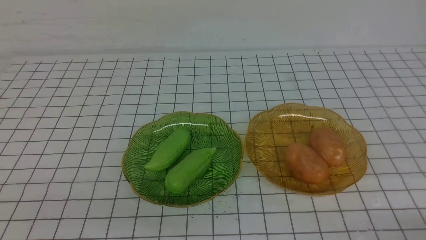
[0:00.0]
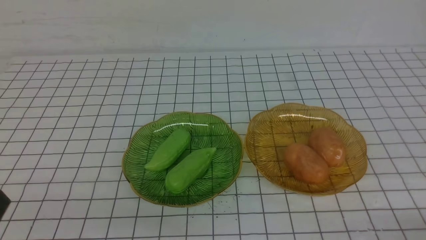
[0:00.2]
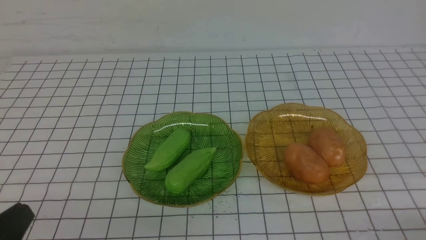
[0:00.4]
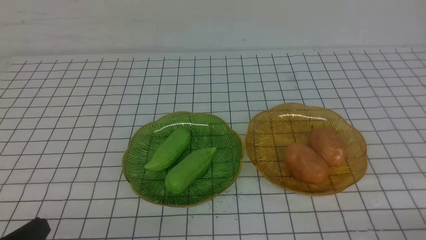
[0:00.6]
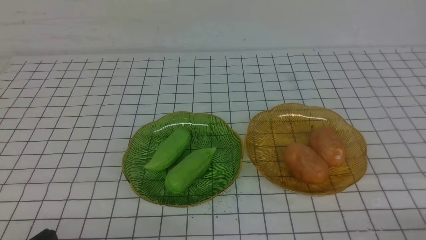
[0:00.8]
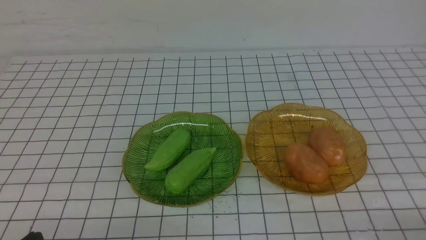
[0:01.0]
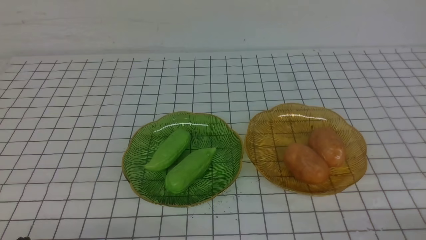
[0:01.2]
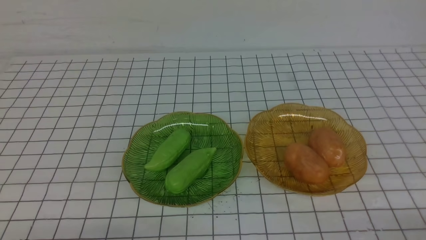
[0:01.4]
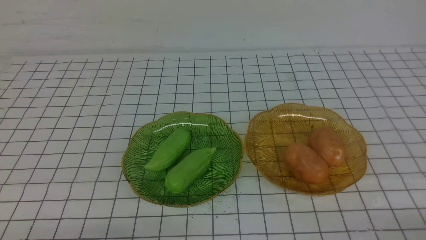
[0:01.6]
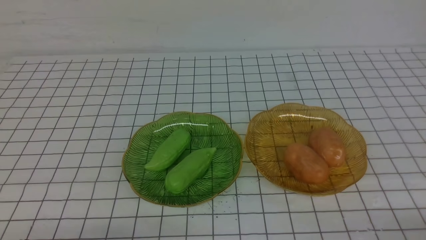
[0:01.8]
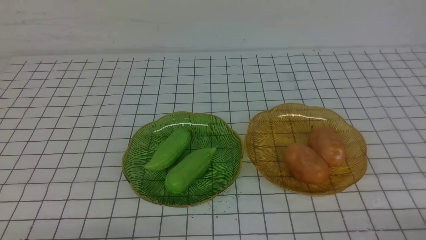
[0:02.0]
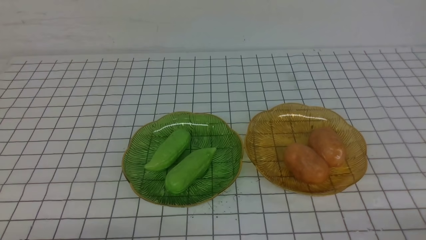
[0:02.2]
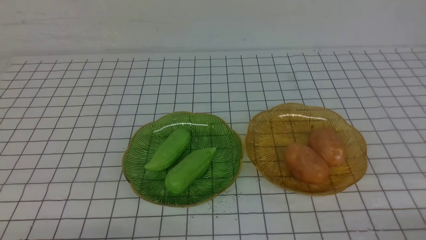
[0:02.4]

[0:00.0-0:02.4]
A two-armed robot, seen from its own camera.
0:01.2 to 0:02.4: Both grippers stay put.

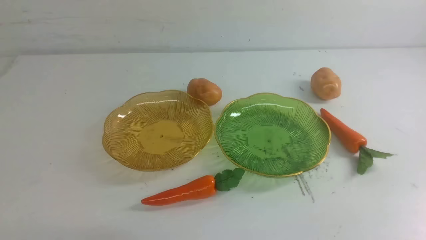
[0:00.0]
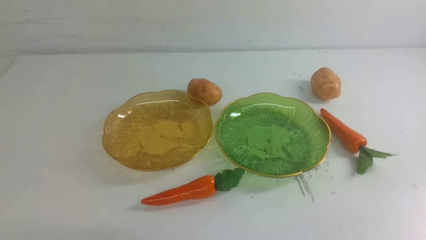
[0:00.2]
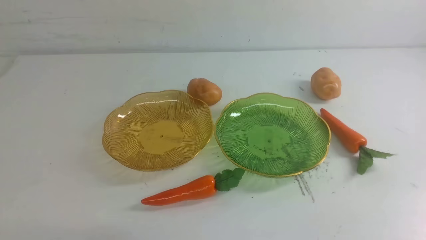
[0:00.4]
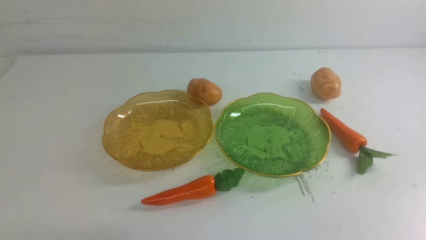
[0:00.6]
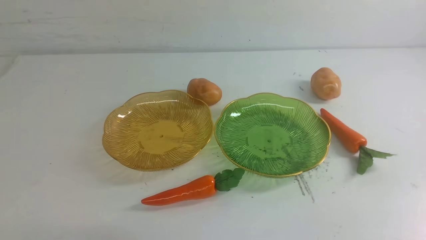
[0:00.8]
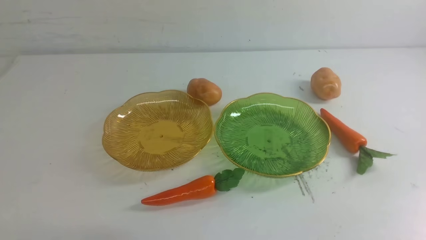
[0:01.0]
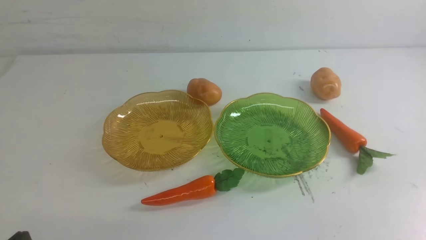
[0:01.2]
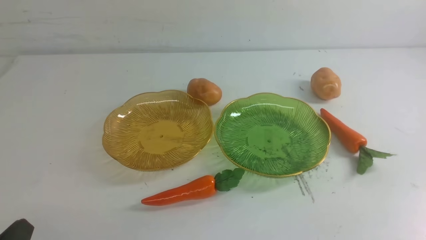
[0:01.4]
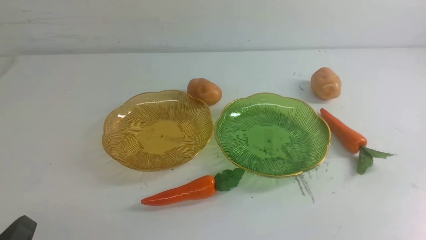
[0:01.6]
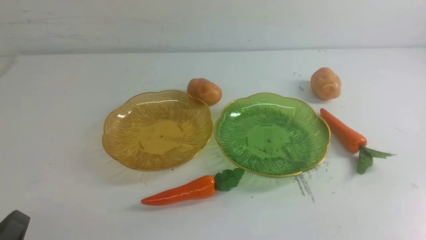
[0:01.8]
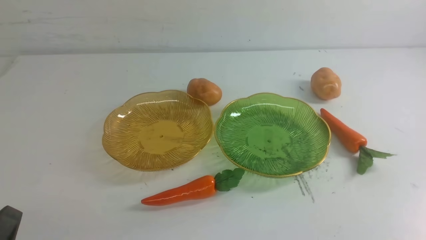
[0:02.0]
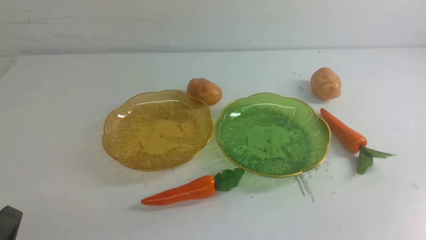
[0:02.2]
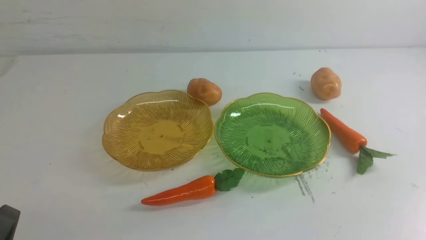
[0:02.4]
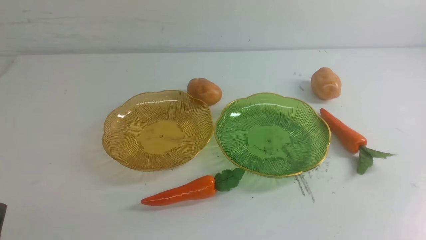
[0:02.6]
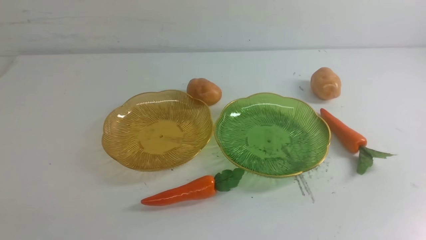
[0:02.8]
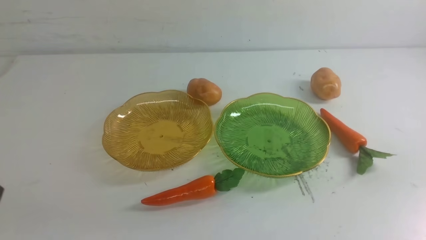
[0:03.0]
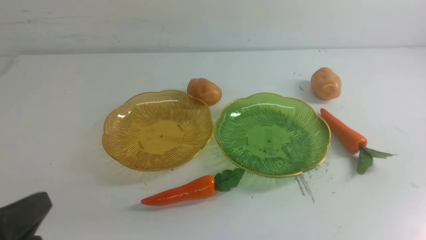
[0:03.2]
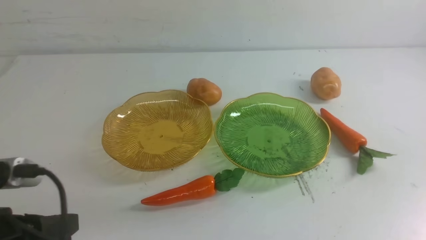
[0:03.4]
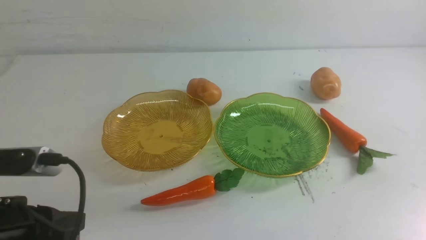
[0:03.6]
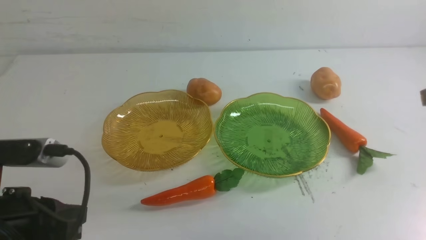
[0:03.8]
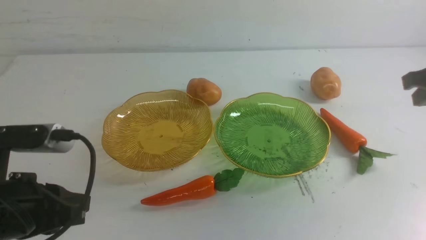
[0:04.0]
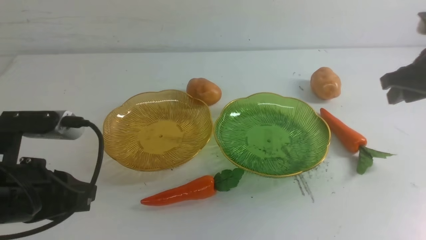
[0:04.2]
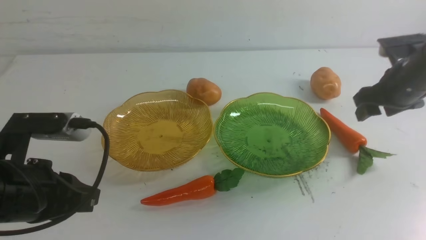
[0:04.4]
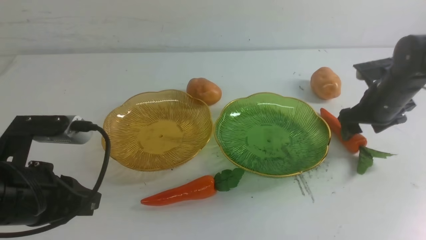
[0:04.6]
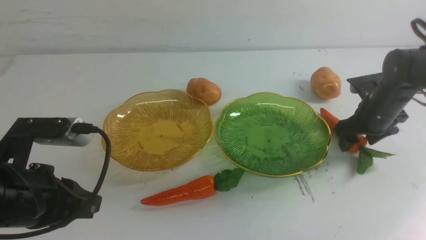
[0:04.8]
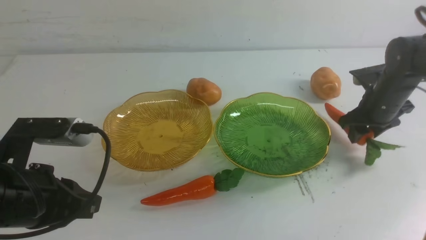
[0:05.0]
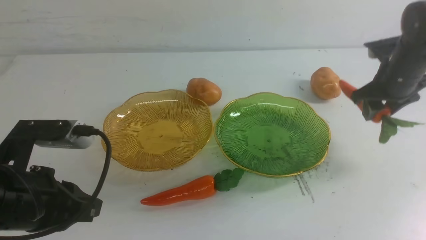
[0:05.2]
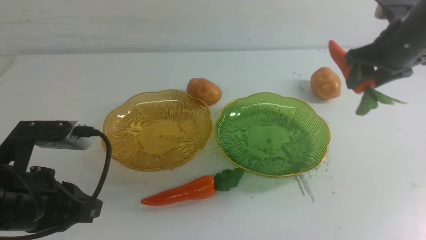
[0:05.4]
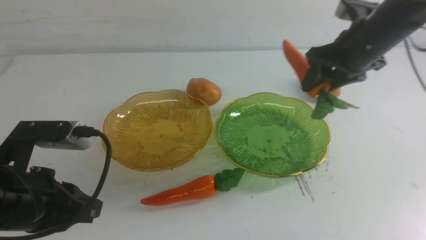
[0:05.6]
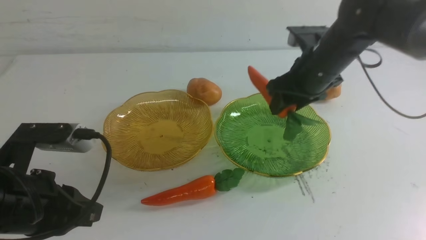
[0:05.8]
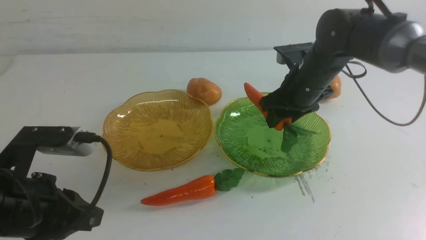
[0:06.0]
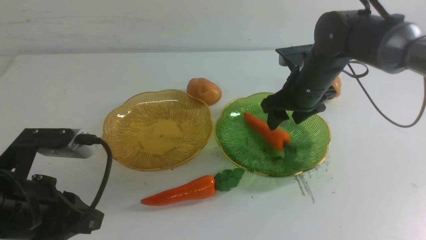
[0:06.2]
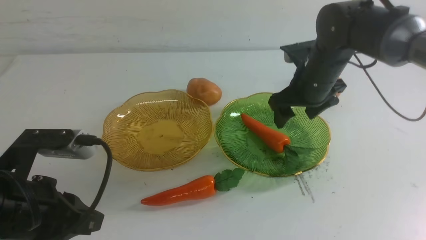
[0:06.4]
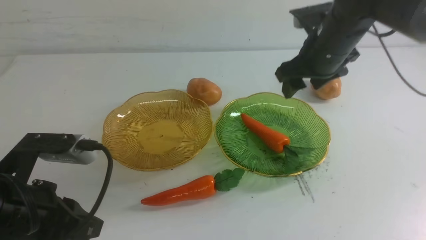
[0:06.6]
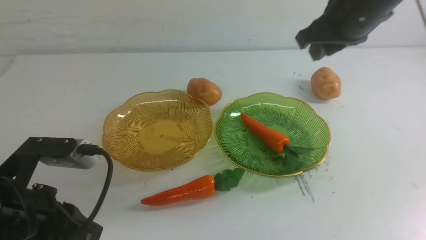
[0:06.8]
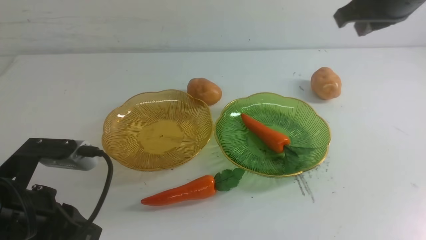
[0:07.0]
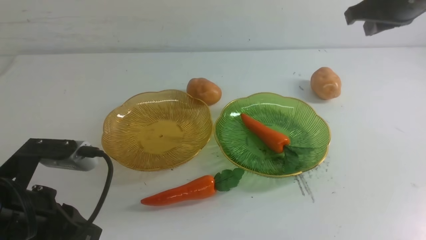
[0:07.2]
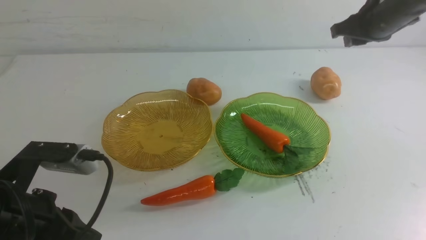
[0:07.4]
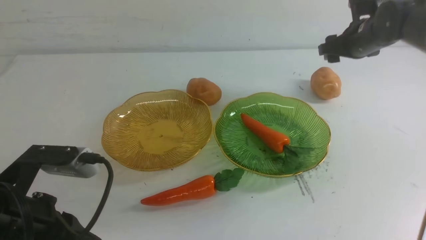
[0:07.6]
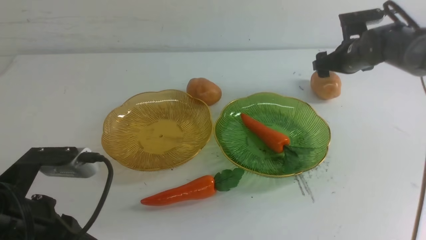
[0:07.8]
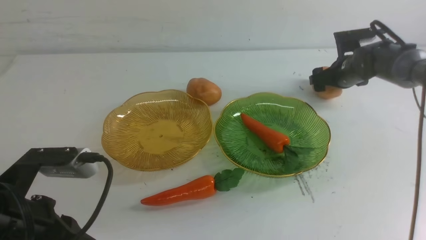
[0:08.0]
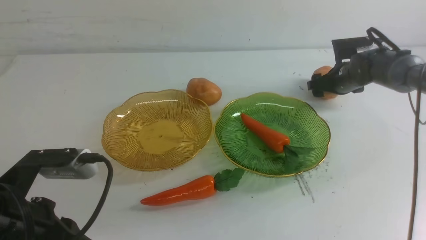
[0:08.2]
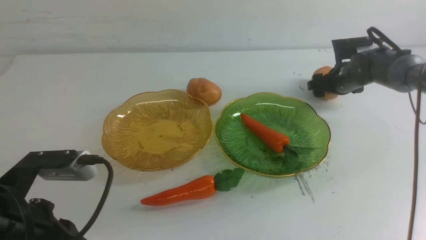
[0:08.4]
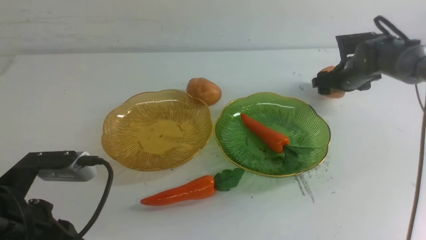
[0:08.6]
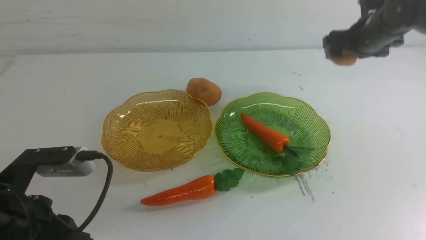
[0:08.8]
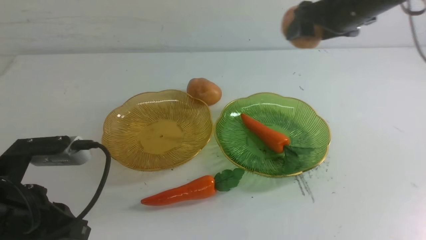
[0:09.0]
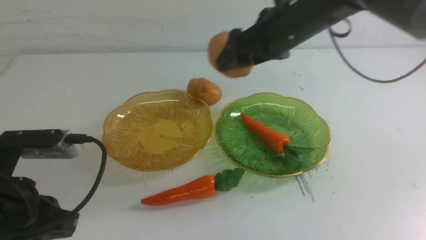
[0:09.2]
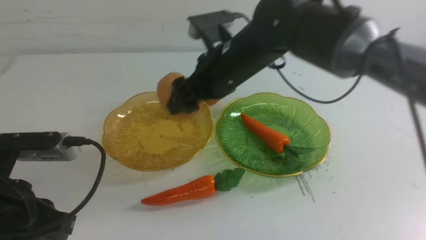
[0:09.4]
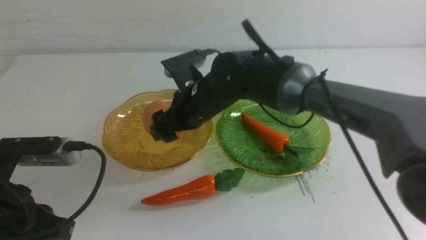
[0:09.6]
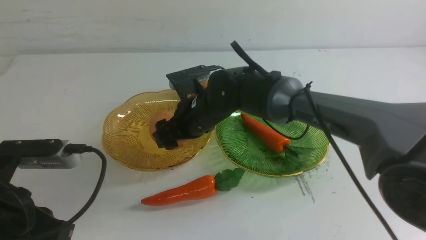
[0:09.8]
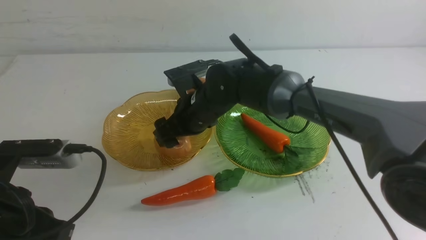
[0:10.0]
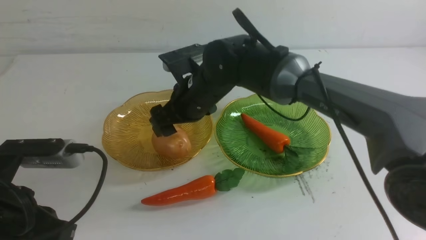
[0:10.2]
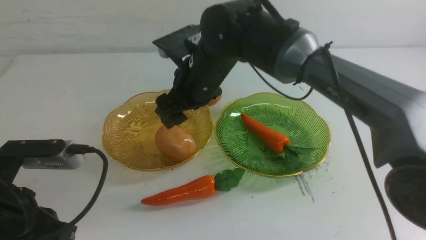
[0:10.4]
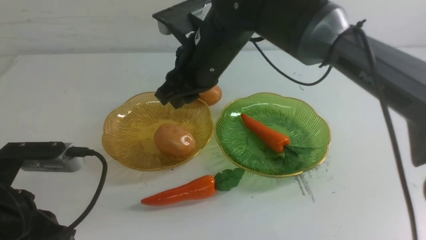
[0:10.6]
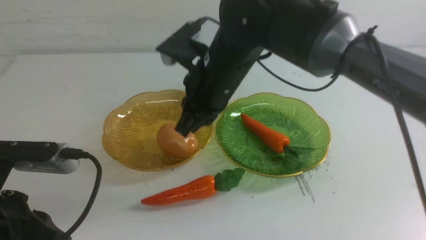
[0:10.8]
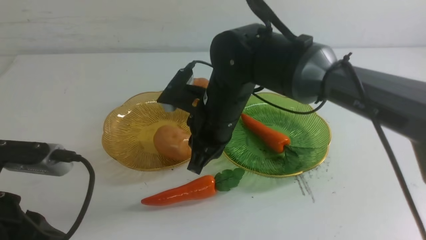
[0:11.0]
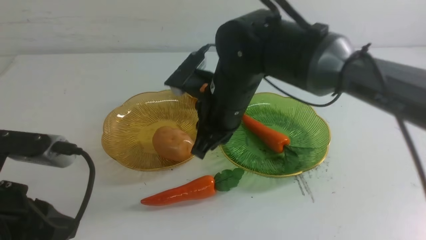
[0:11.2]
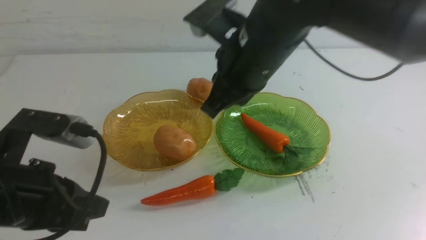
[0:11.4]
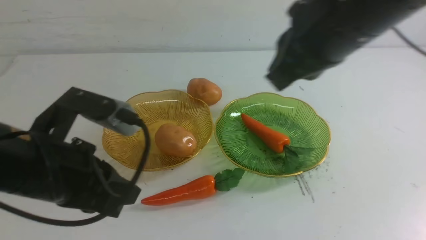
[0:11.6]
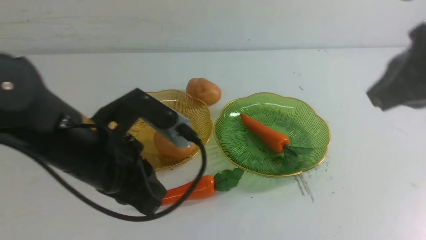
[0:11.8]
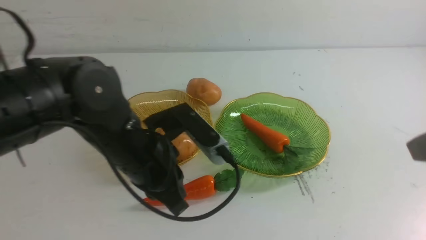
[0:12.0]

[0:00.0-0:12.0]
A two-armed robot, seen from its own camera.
Step, 0:00.0 to 0:06.4: use the right arm to grab a carrot and put it into the right plate.
Step, 0:06.6 to 0:10.2: Grab a potato with your right arm and put it on the left plate.
0:01.6 to 0:03.0: The left gripper shifts about 5 cm upward.
0:03.0 to 0:04.4: The right gripper goes roughly 35 cm forward, and opens, while the left gripper travels forward by roughly 10 cm.
0:04.4 to 0:06.0: The right gripper travels to the left by about 15 cm.
0:06.0 to 0:07.6: The right gripper heads to the right and forward, covering about 15 cm, reaches about 15 cm upward, then returns, and closes and opens again.
0:07.6 to 0:09.0: The right gripper heads to the left, upward and backward, covering roughly 15 cm.
0:09.0 to 0:10.4: The right gripper moves to the left, approximately 20 cm.
0:10.4 to 0:12.0: The right gripper heads to the right and backward, covering some 35 cm, and closes its fingers. Meanwhile the left gripper travels to the right and forward by about 15 cm.

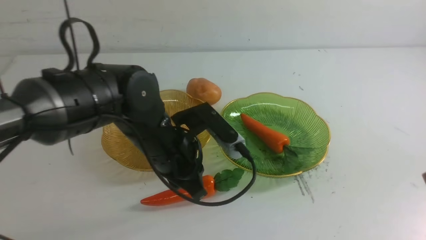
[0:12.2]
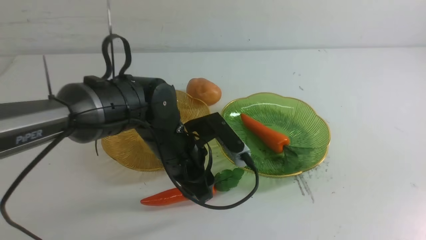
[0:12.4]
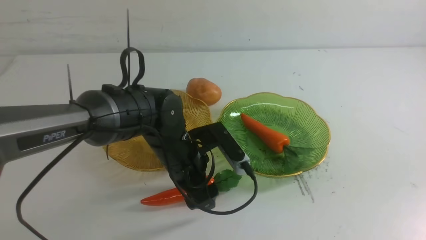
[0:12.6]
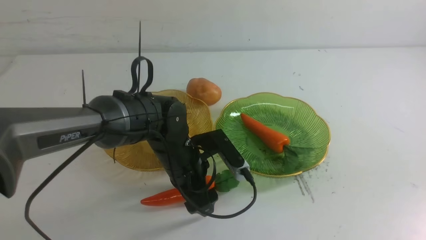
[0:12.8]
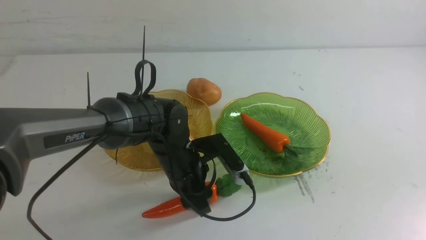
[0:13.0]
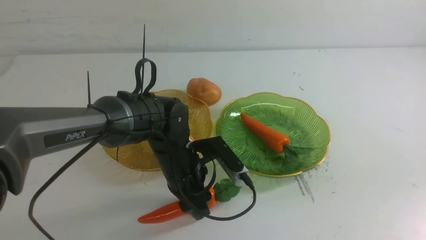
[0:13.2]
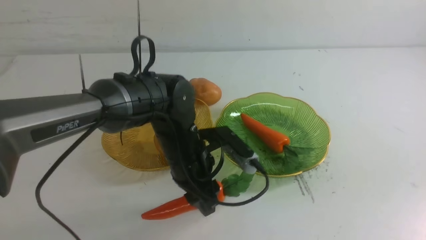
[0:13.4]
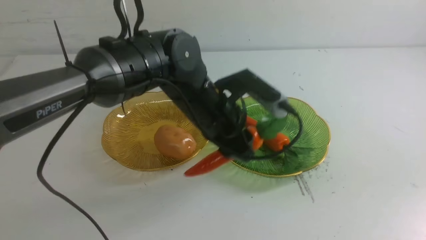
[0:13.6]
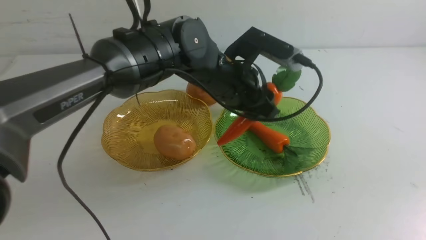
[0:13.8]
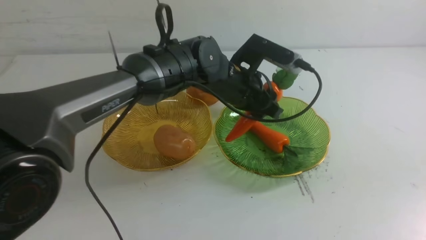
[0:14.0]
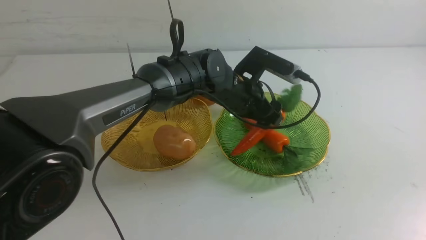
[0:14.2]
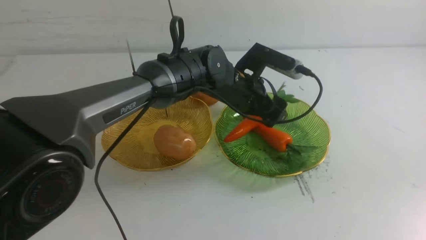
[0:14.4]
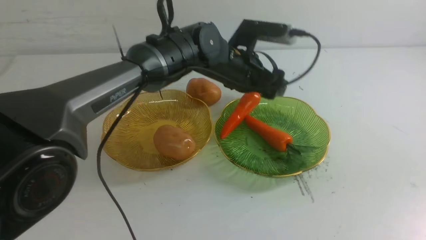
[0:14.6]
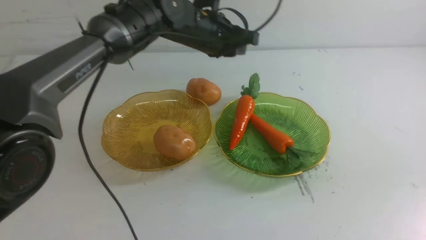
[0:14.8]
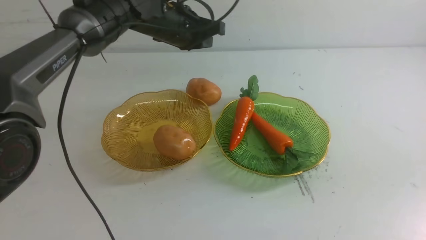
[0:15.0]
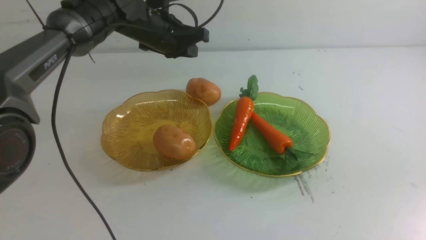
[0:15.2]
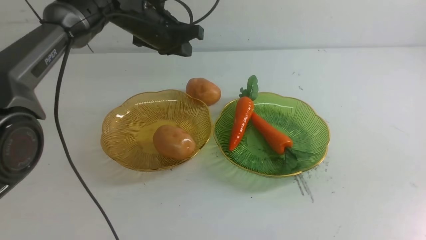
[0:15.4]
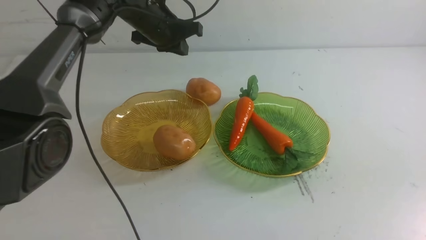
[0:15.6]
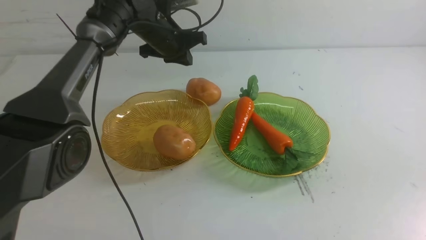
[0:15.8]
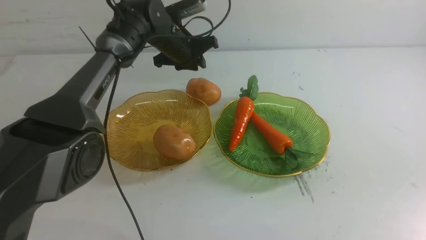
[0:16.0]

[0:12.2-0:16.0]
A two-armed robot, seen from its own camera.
Step, 0:12.2 to 0:14.6: use the left arm to grab a carrot and put it into the right plate.
0:12.2 to 0:13.4: The left gripper goes downward and returns, about 10 cm each way, and opens, then closes again.
0:13.4 to 0:14.8: The left gripper moves forward and upward, some 15 cm, and opens and closes again.
0:14.8 to 0:16.0: The left gripper goes roughly 10 cm forward and downward.
